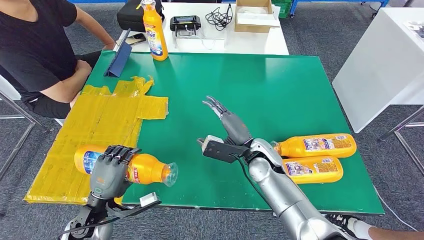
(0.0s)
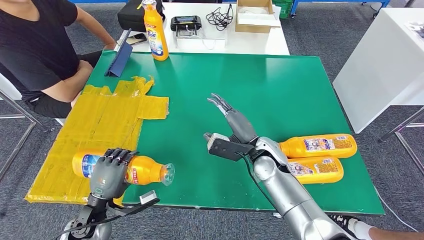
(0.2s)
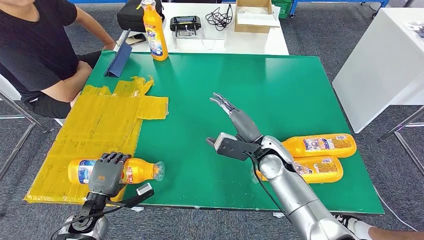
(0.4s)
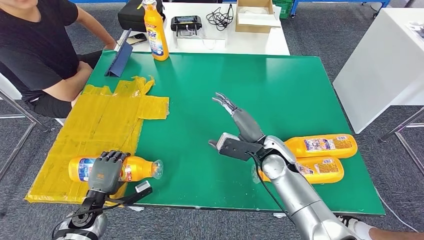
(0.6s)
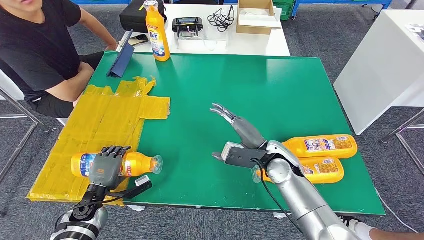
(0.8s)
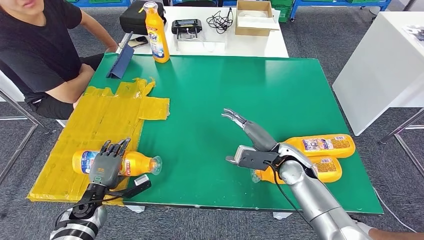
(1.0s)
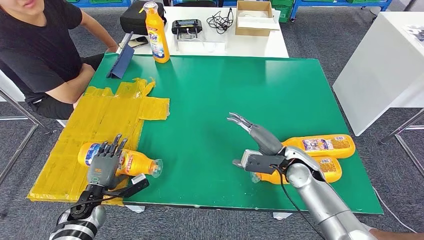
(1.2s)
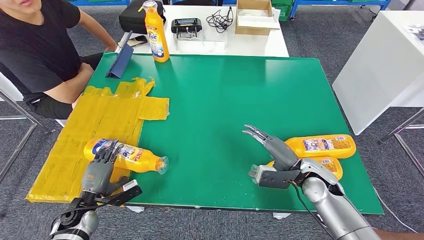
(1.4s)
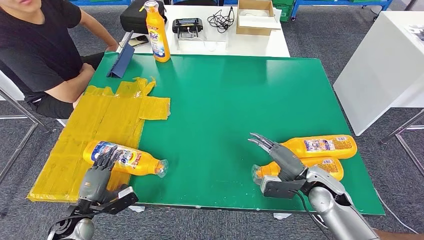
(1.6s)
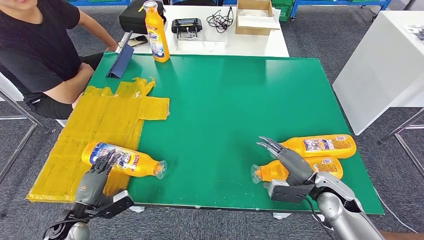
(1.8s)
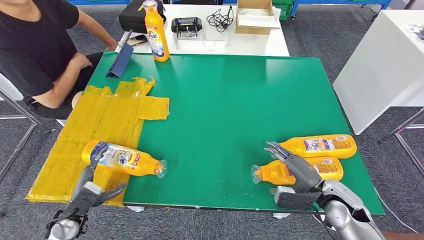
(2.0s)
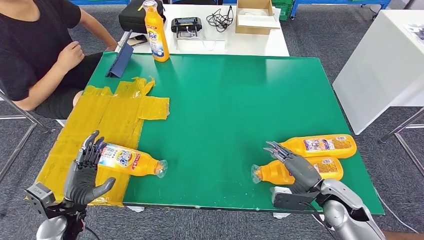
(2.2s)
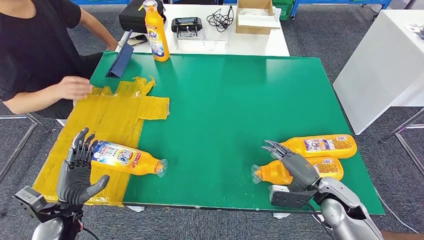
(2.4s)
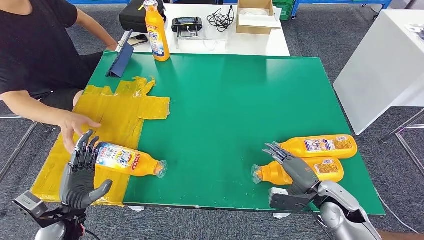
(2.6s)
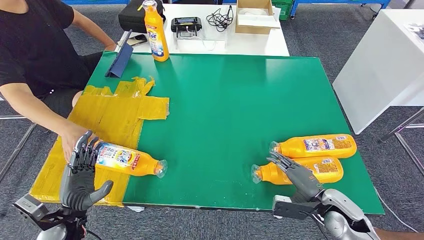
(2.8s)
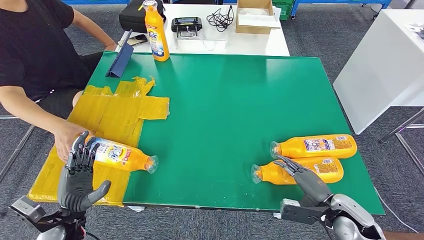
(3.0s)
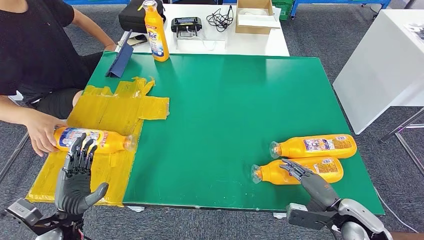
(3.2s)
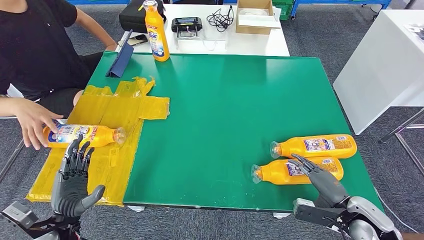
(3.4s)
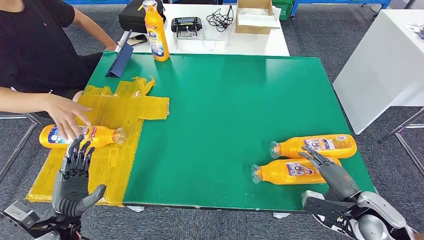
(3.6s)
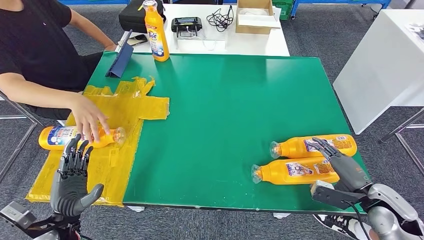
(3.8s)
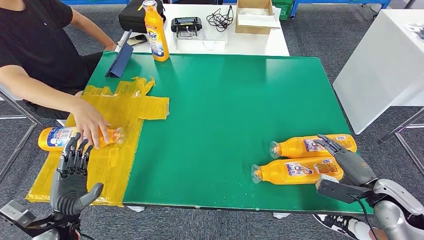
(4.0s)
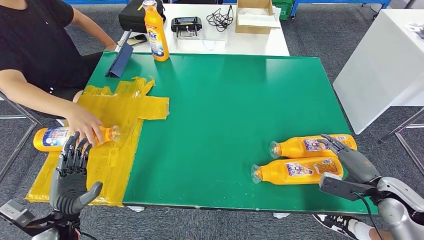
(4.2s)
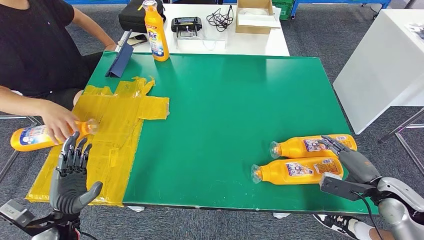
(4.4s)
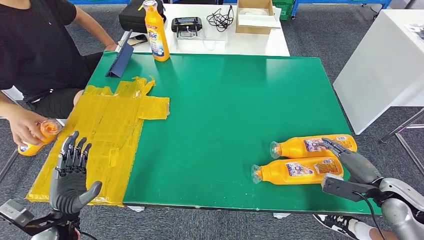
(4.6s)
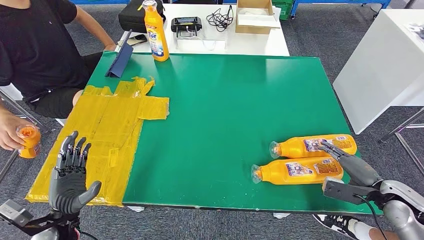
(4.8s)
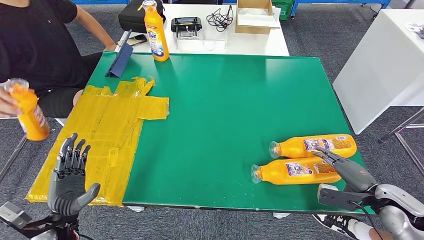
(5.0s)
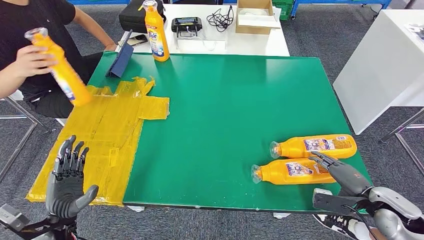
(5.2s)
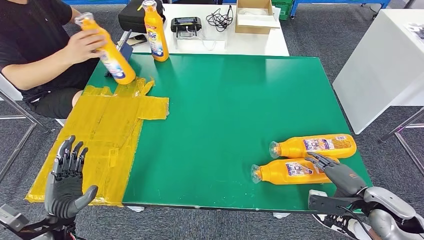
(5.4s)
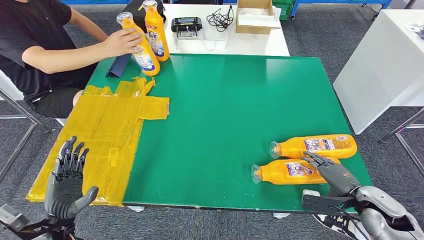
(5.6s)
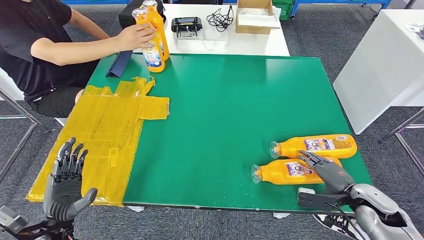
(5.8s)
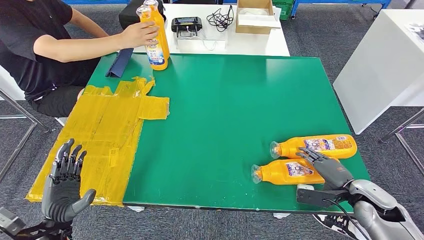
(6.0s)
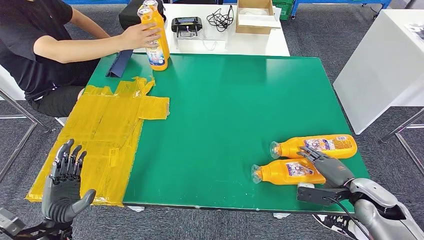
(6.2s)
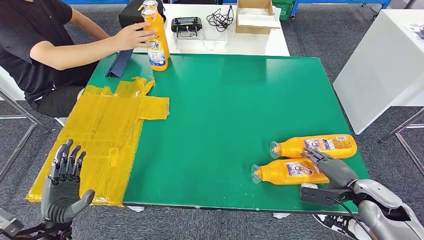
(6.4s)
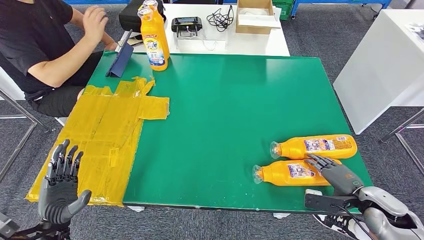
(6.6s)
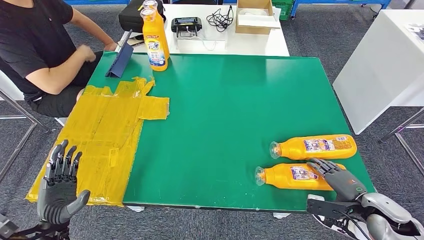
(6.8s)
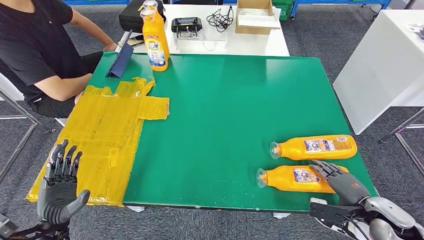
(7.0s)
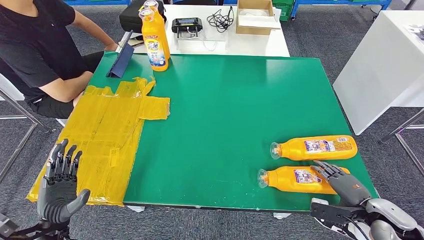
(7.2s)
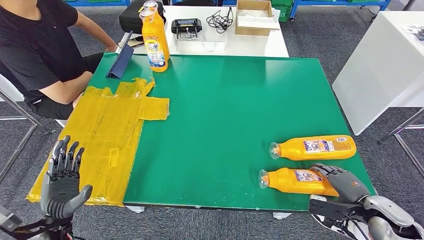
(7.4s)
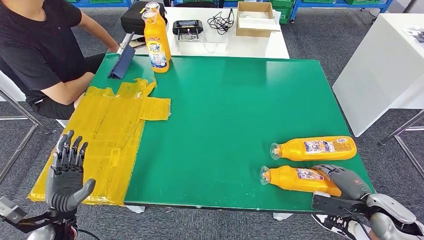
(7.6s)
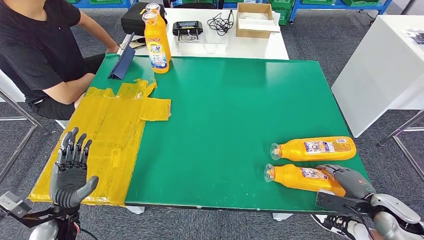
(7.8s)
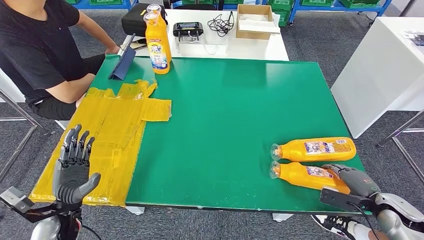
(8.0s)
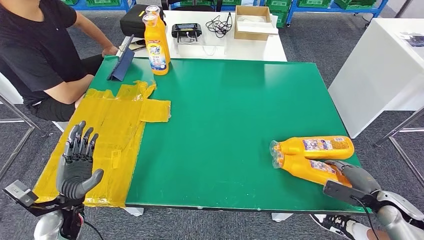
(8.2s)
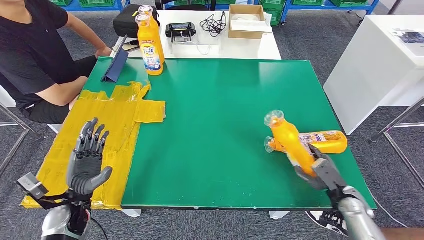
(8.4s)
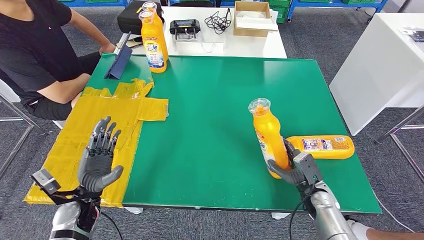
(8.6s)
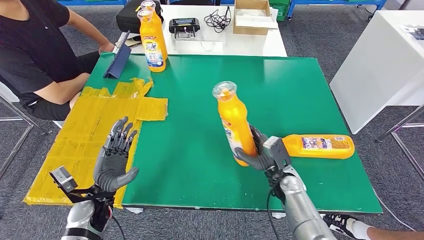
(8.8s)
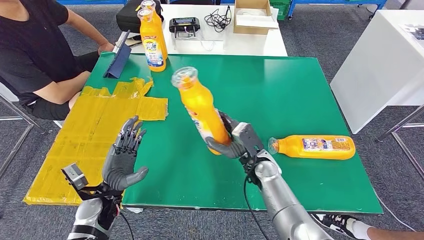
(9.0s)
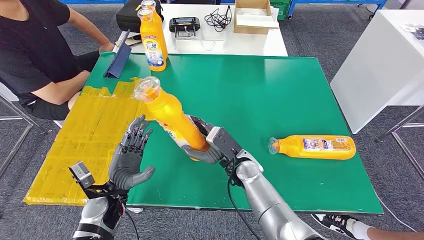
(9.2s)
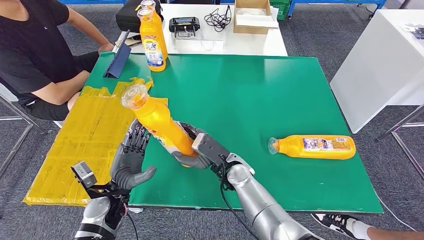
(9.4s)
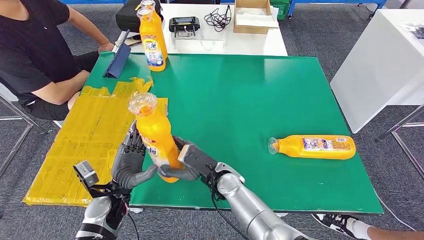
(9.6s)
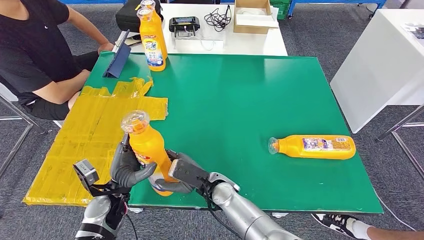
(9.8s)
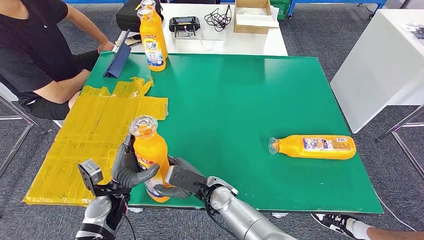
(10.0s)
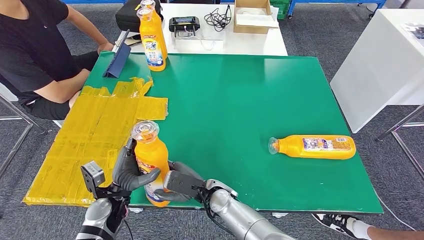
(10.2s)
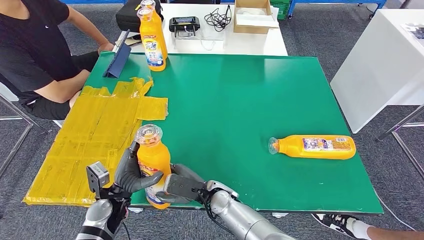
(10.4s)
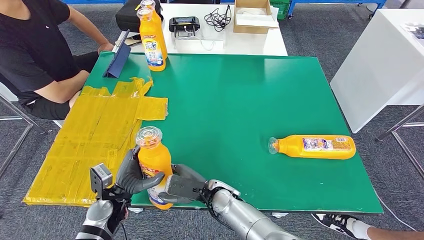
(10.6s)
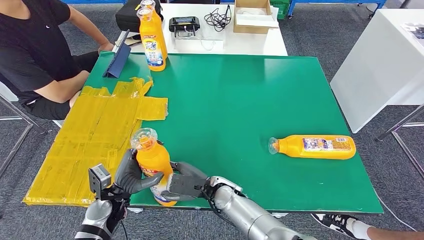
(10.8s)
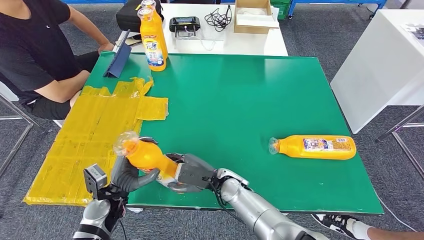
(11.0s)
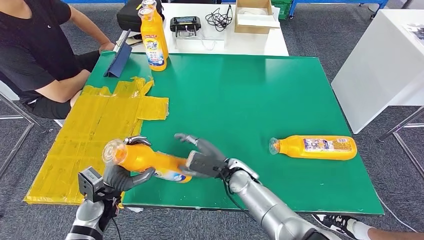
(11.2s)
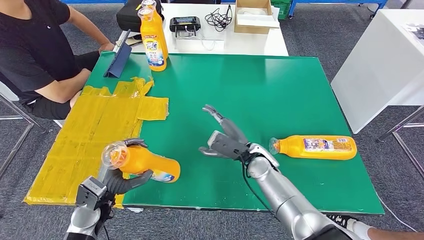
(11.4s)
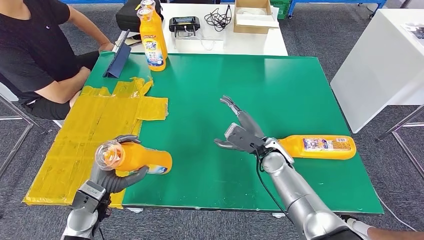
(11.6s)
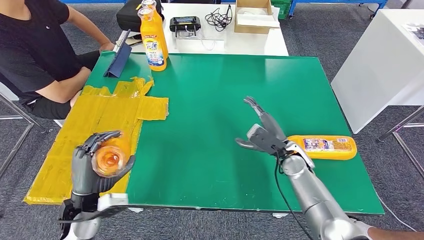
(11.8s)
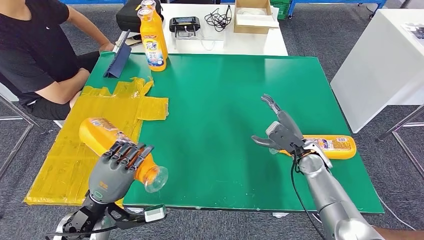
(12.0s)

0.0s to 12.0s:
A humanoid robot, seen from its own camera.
Step, 0.0s to 3.2s: Flip the fast-moving consumer goods bottle to the front side.
Step, 3.4s to 8.8s: Pick up the fast-moving consumer goods bottle from the table.
3.0s to 4.4s: The right hand shifts roughly 10 cm to the right and upward.
4.4s to 6.0s: The right hand ends up approximately 5 cm from where it was.
9.0s to 10.4s: The right hand is displaced to the left and backward by about 15 cm.
10.4s to 12.0s: The right hand is displaced to the right and forward by some 25 cm. The left hand travels upward by roughly 5 cm.

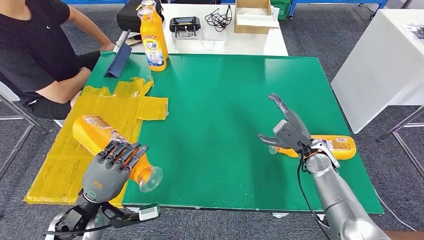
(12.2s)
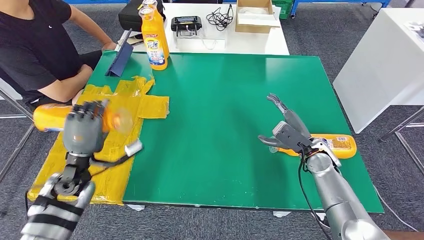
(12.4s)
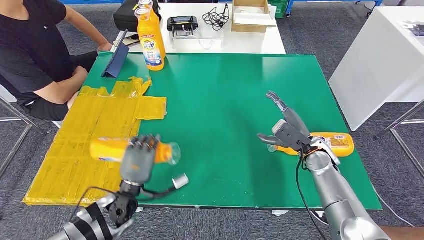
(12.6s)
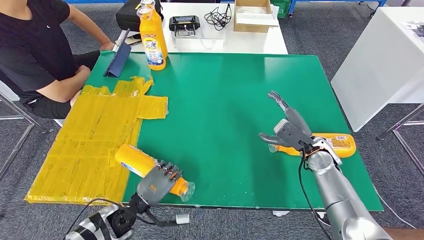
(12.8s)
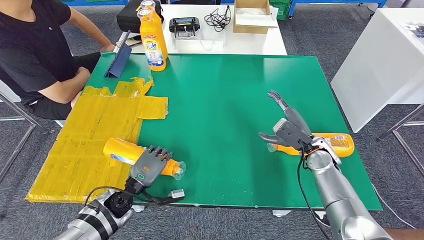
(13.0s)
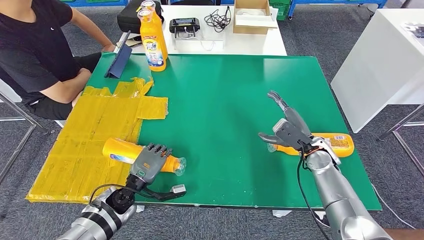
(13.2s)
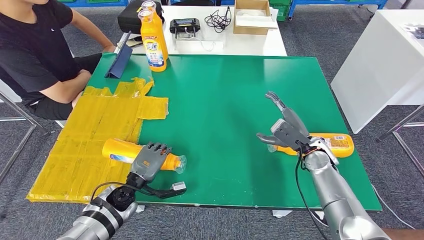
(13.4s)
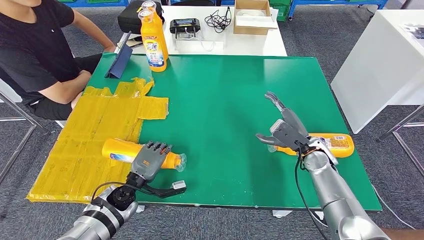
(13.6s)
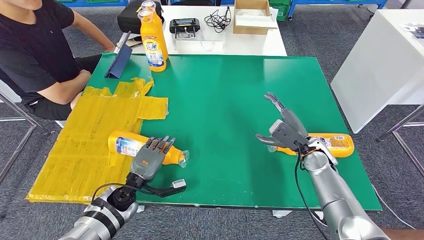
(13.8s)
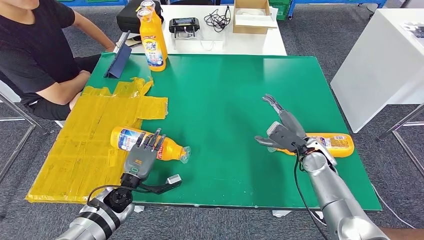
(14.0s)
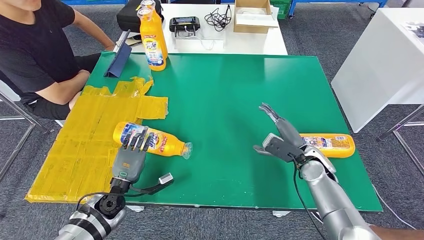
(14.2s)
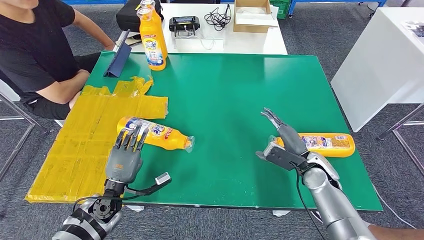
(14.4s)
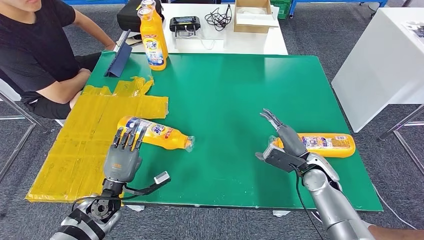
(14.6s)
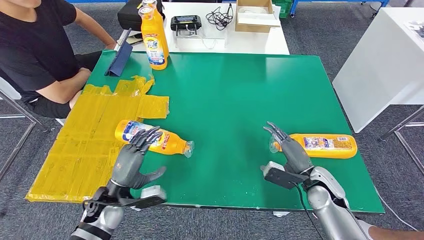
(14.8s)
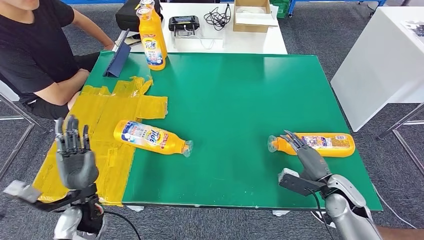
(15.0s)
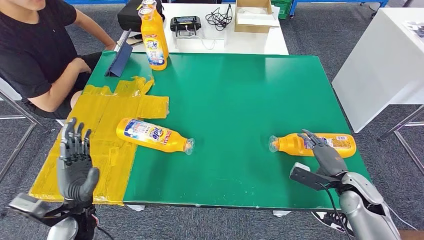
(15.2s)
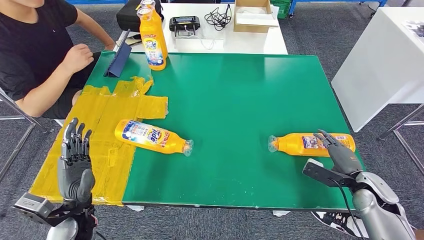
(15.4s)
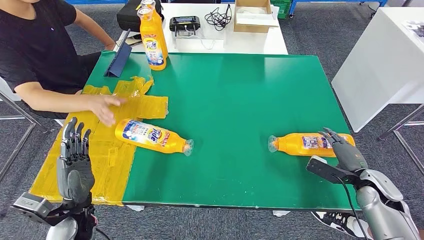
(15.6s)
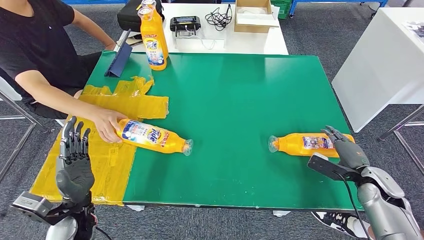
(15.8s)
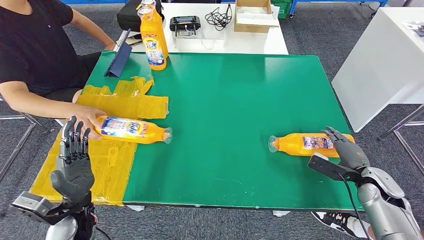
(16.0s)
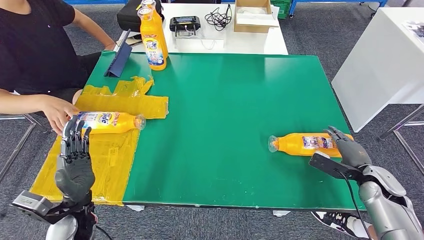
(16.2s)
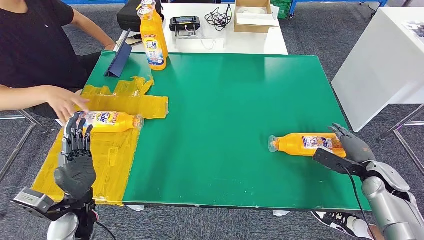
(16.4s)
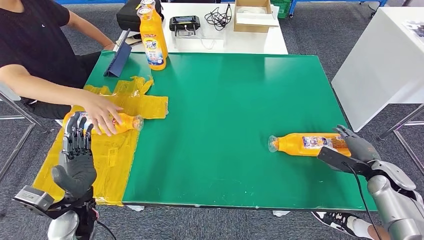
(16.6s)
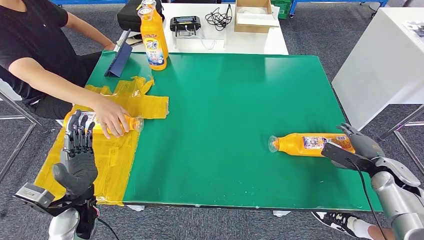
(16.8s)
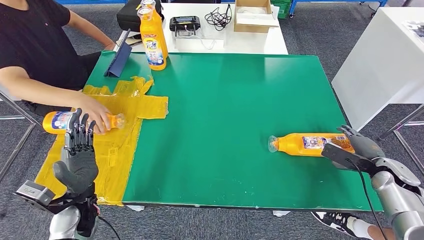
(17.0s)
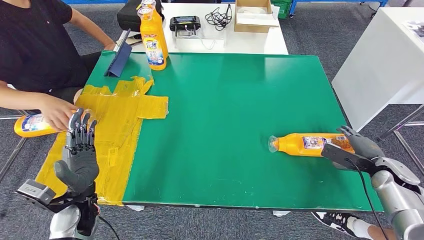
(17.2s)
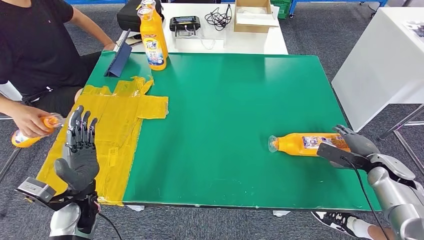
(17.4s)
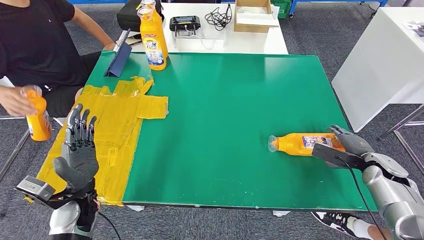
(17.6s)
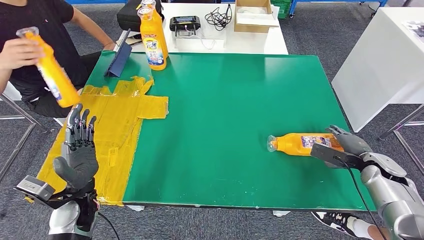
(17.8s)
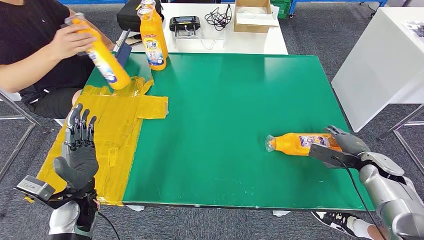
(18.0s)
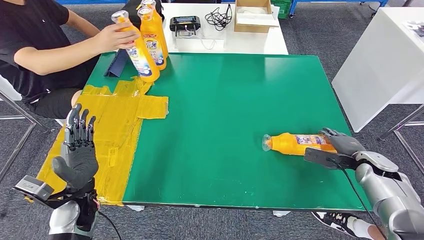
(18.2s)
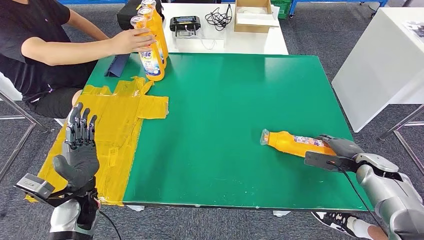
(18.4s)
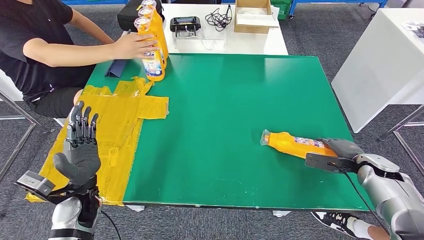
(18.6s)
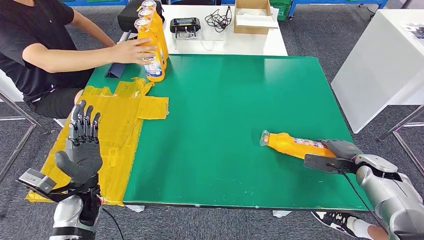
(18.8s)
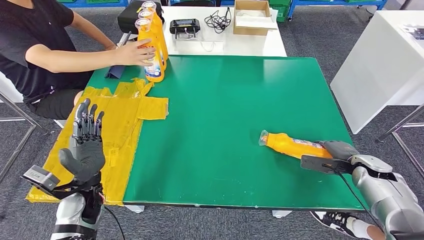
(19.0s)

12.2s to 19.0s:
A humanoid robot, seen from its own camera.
Step, 12.2s to 16.0s: Flip the fast-moving consumer goods bottle to the front side.
12.2s to 13.6s: The left hand goes about 15 cm downward and forward.
16.2s to 17.6s: The hands stay close to where they were, moving slightly.
